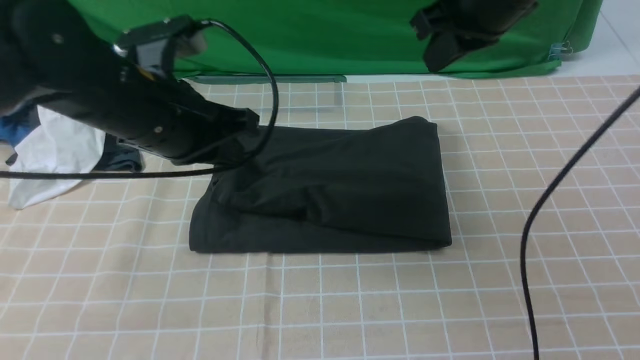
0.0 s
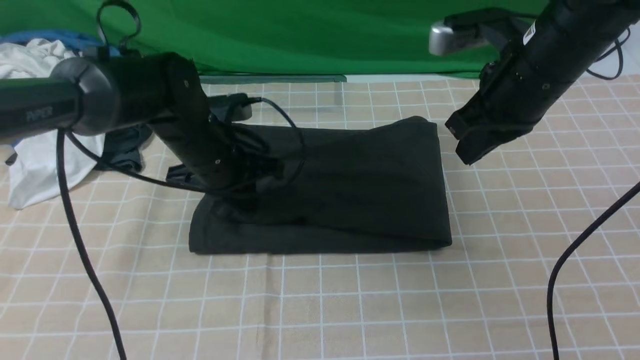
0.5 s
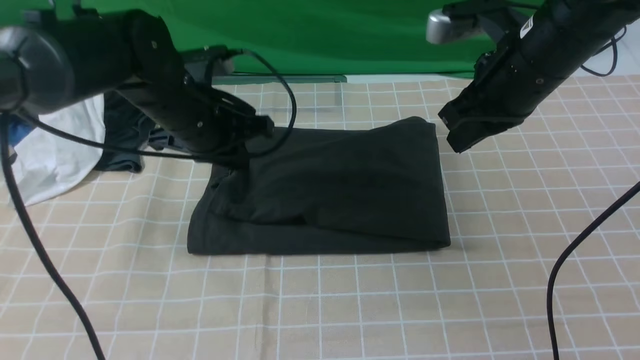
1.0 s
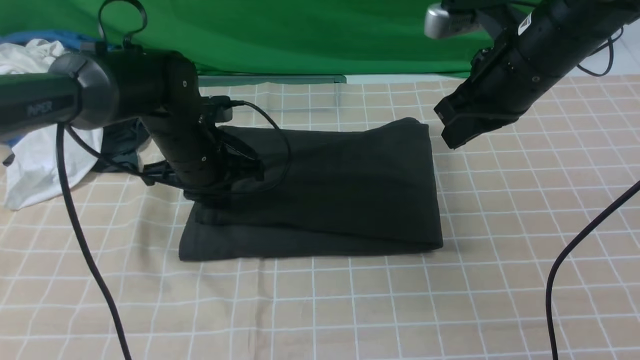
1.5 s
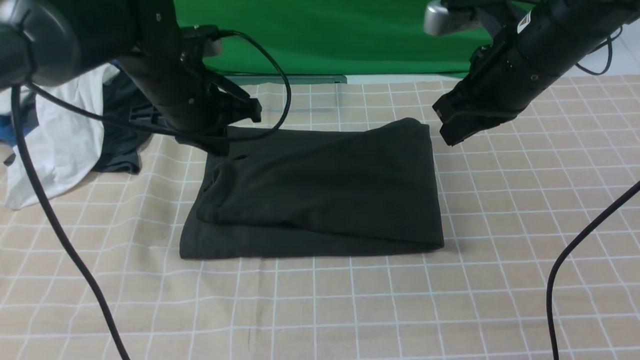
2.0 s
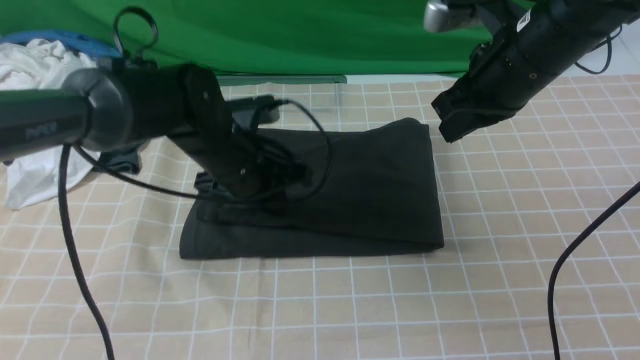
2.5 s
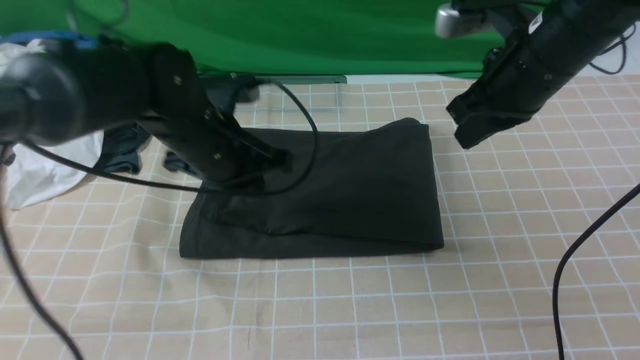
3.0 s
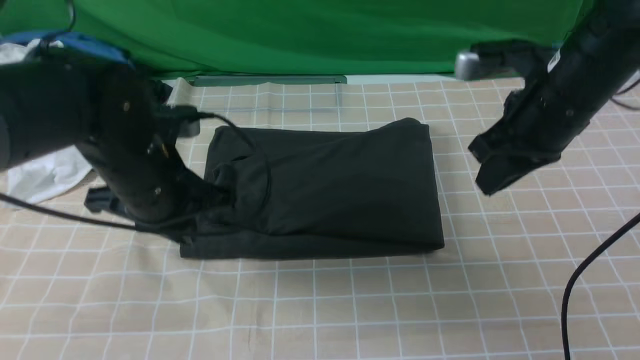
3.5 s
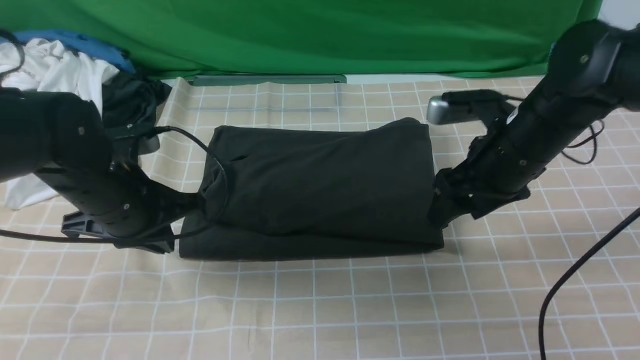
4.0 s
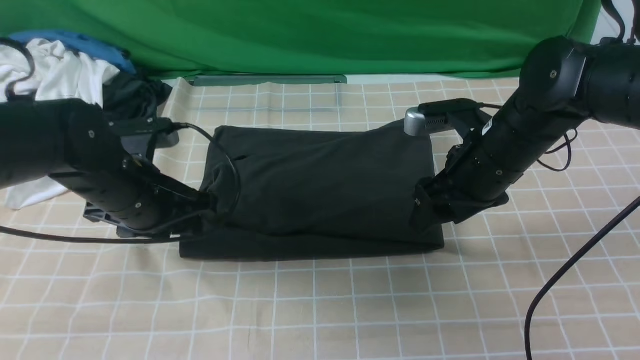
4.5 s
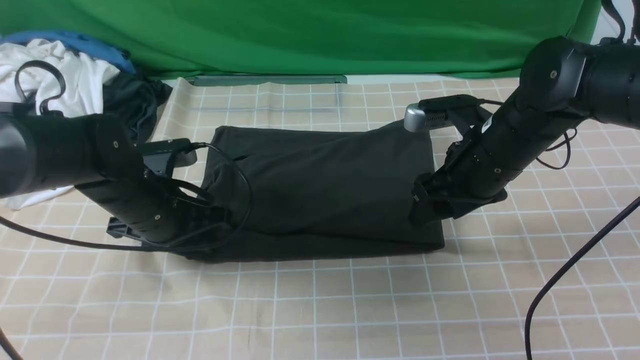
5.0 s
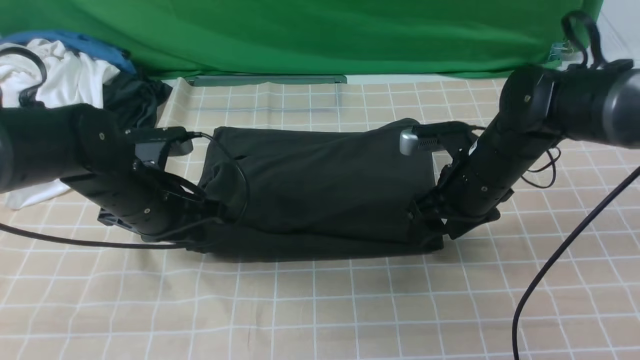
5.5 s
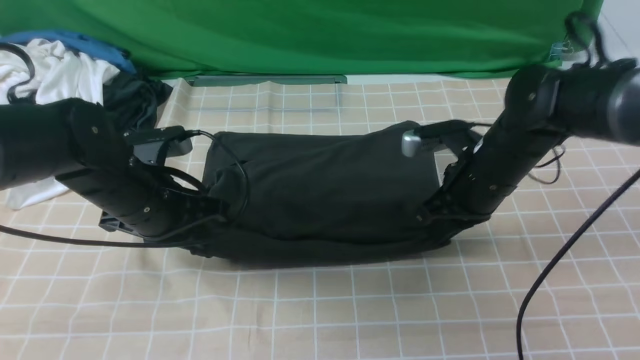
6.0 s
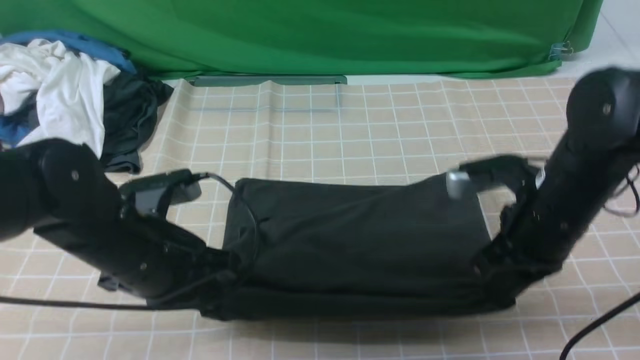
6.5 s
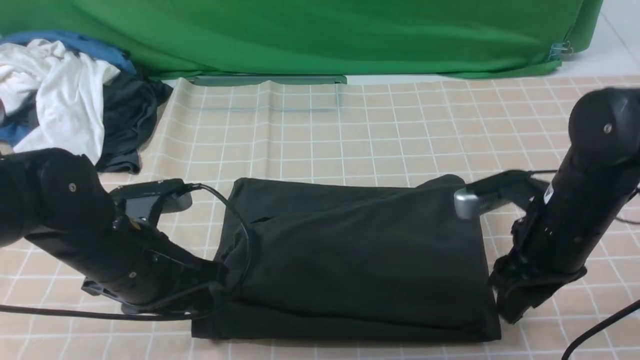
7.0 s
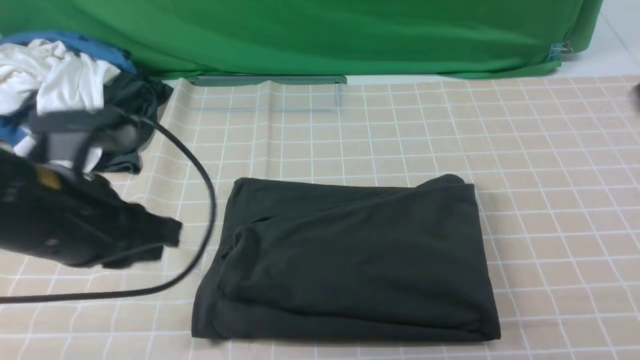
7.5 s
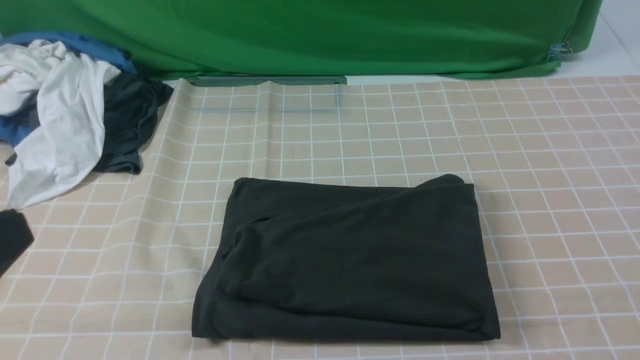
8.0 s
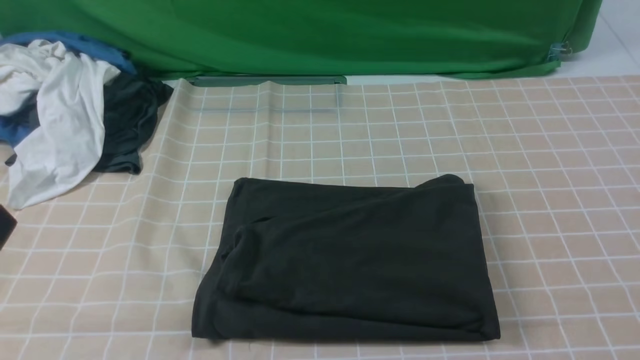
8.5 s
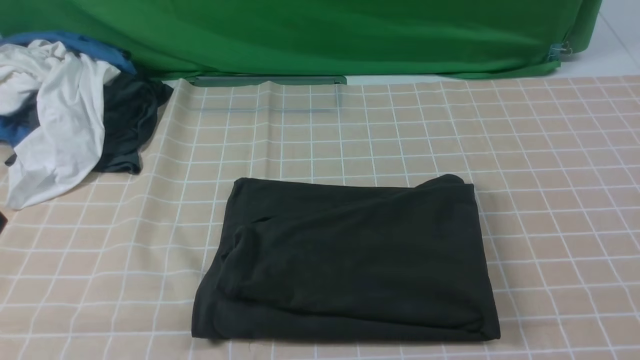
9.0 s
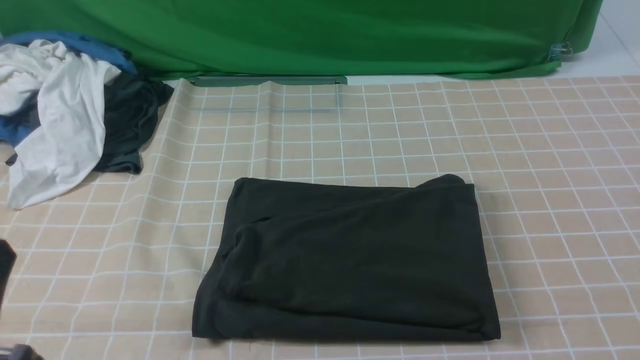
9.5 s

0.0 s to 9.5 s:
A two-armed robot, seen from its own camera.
0.0 to 2.0 s: The right gripper changes place by roughly 5 cm, while the left gripper travels forward and downward by approximately 10 cm.
2.0 to 4.0 s: The right gripper shifts some 10 cm downward, and opens, while the left gripper goes roughly 10 cm backward and to the left.
4.0 to 5.5 s: The right gripper changes place by roughly 5 cm. Meanwhile the left gripper opens, then closes once more.
5.5 to 7.5 s: The right gripper heads upward, backward and to the right, covering some 30 cm, and closes its fingers. Meanwhile the left gripper heads upward and backward, covering roughly 20 cm, and opens, then closes once more.
7.5 to 9.5 s: The left gripper moves backward, to the left and downward, about 15 cm, while the right gripper is displaced backward by roughly 15 cm.
